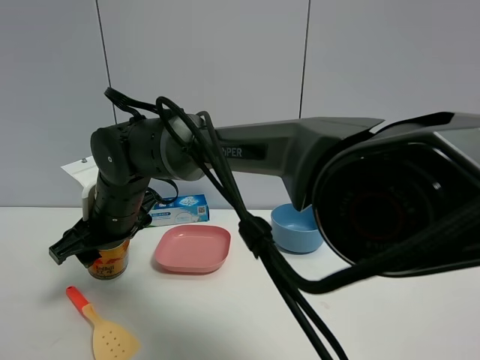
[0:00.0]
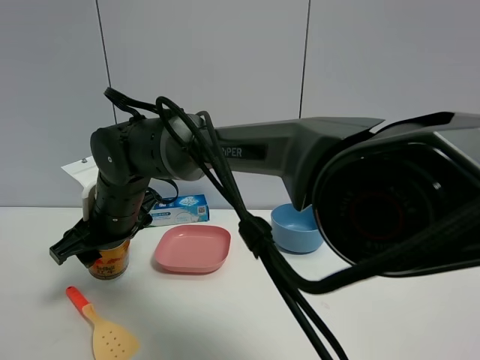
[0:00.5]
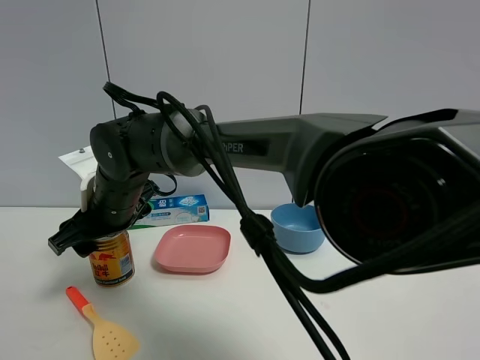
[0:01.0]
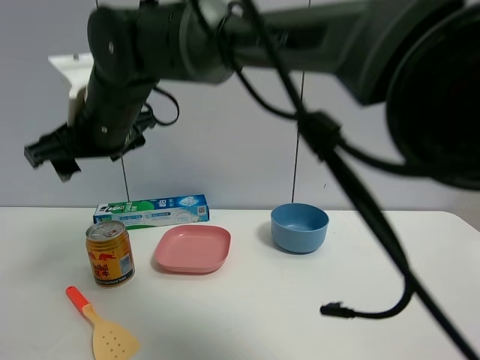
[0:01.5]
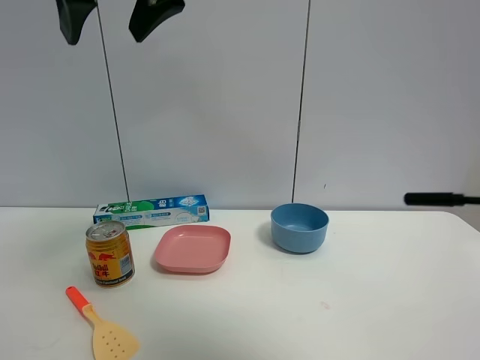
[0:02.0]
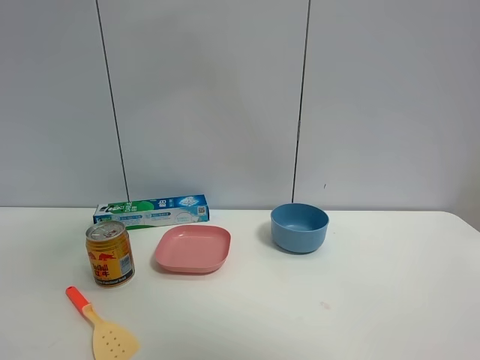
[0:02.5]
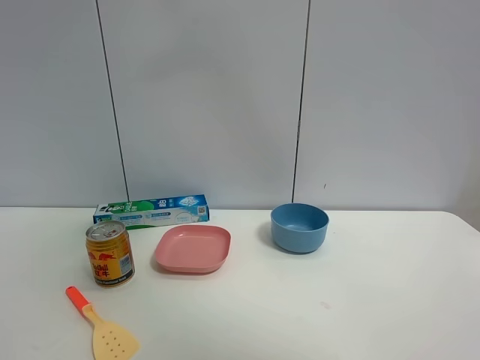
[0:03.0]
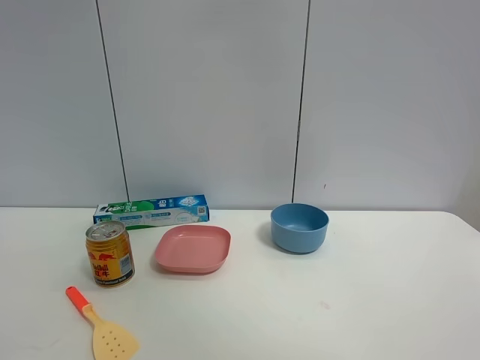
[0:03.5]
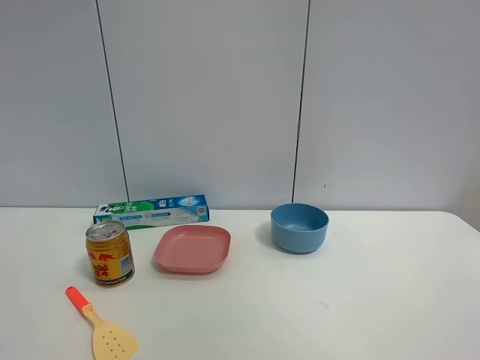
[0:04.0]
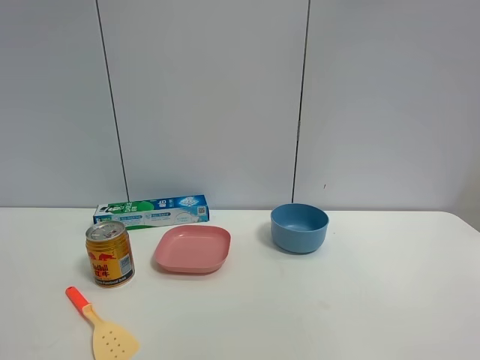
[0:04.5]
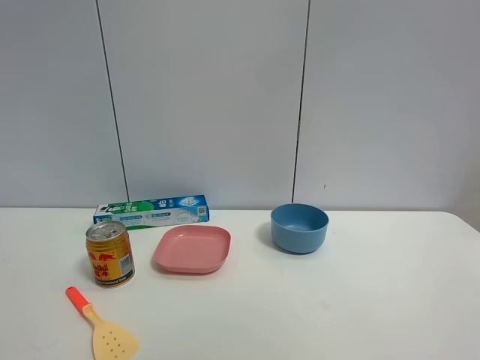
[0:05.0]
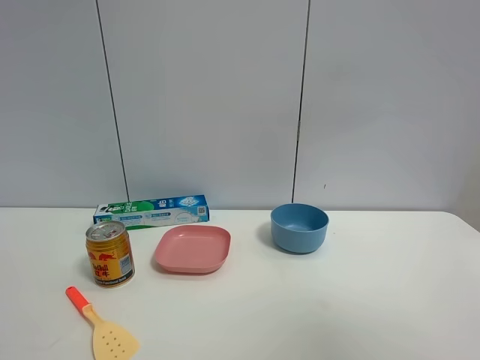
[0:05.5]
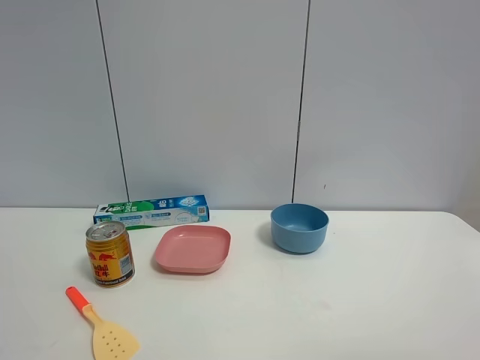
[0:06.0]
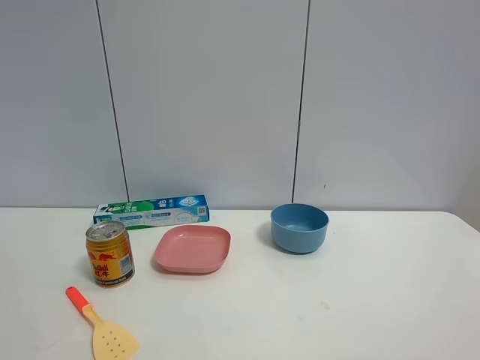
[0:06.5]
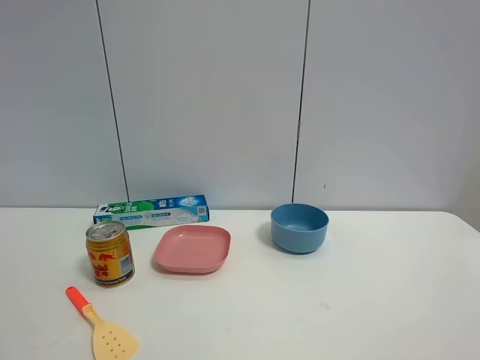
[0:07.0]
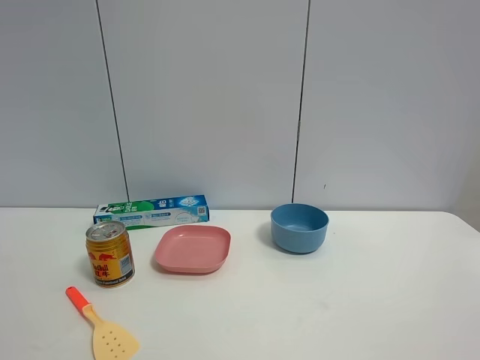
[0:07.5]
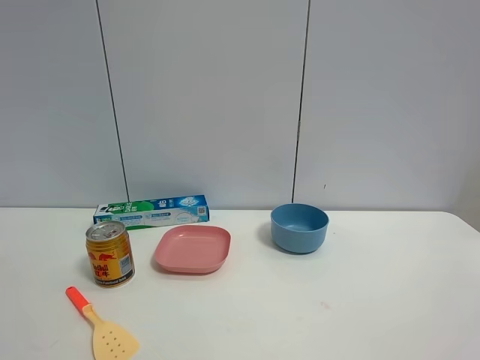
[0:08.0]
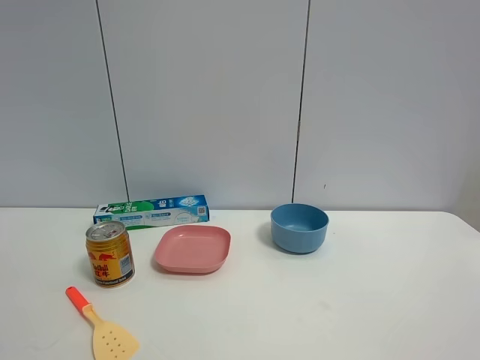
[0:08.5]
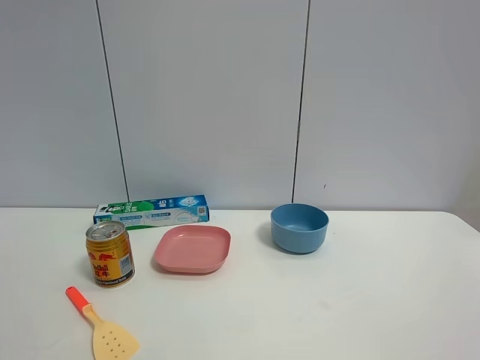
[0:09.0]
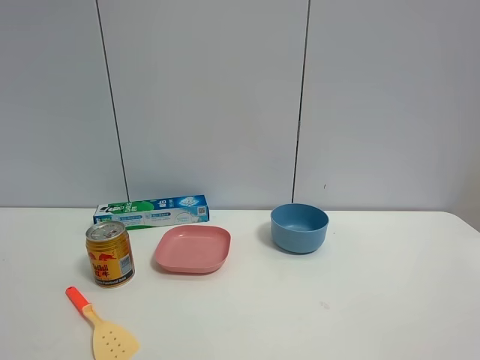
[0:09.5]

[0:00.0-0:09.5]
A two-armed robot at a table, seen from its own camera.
Task of the whole recording: the gripper move the object.
0:00.0 to 0:02.0: The right gripper heads upward, covering some 30 cm.
0:02.0 to 0:04.0: The right gripper travels to the right, upward and backward by roughly 40 cm.
0:04.0 to 0:05.5: The right gripper shifts approximately 20 cm downward and backward.
0:05.5 to 0:07.5: The right gripper is displaced downward by about 20 cm.

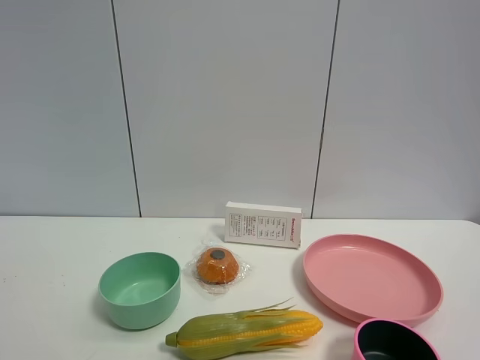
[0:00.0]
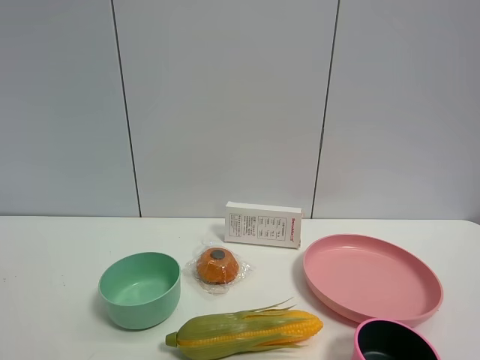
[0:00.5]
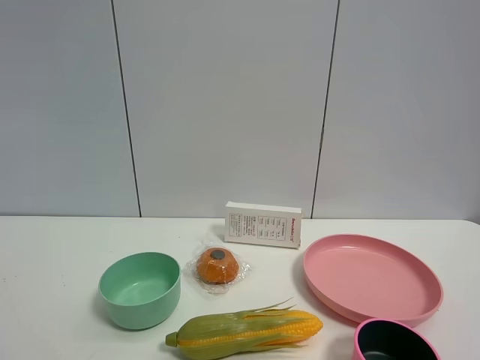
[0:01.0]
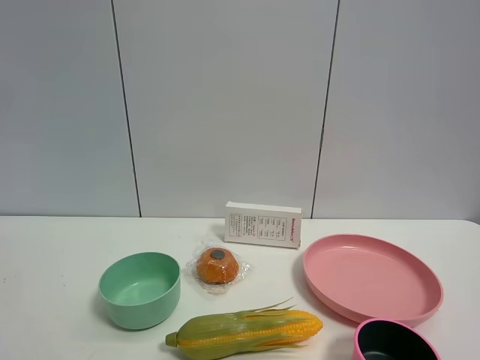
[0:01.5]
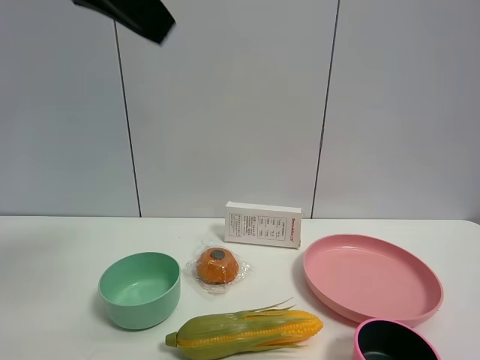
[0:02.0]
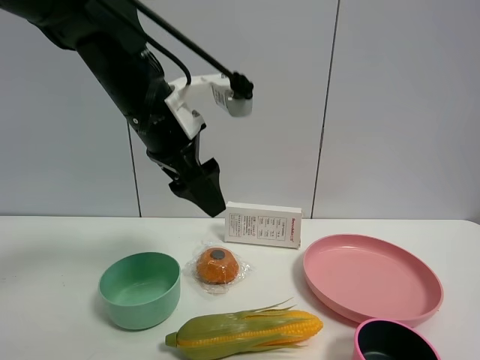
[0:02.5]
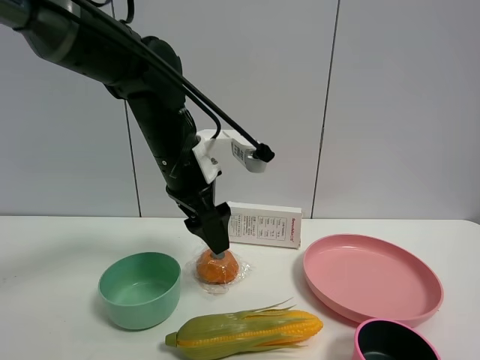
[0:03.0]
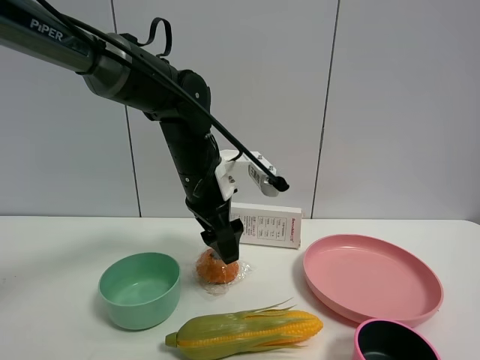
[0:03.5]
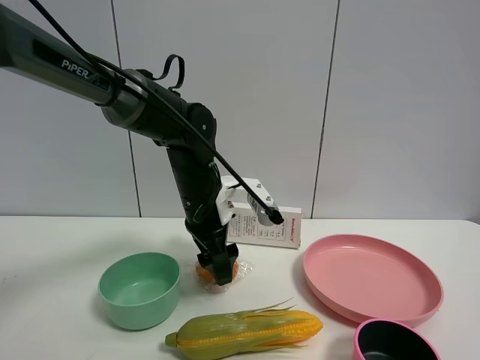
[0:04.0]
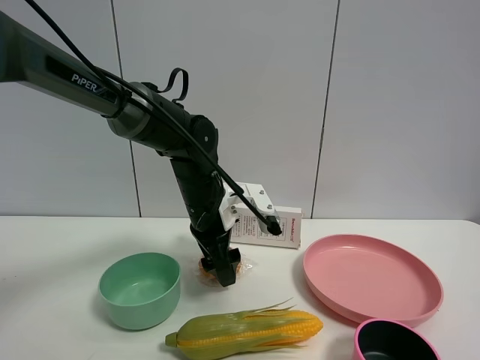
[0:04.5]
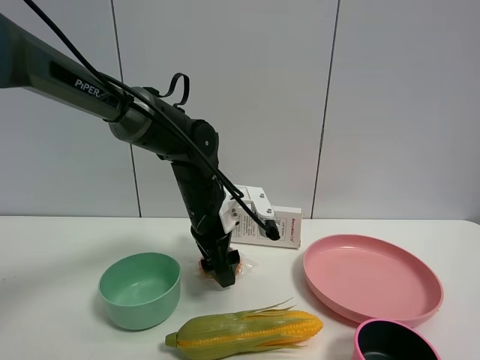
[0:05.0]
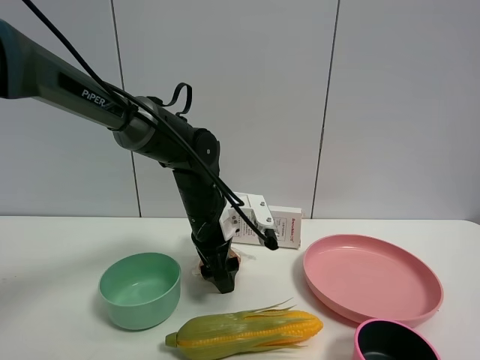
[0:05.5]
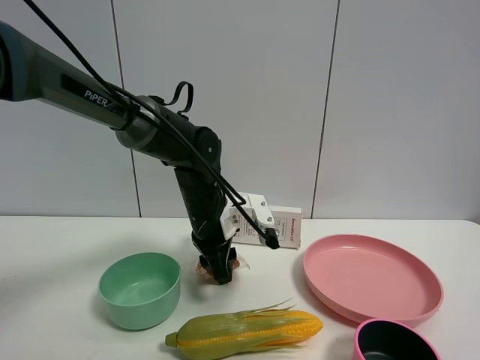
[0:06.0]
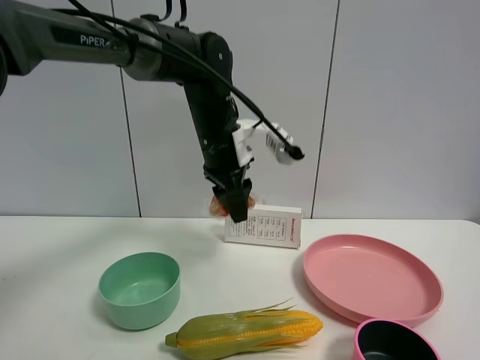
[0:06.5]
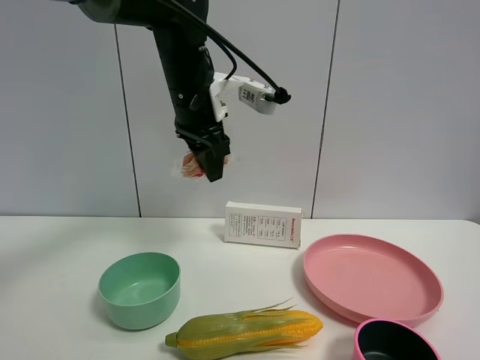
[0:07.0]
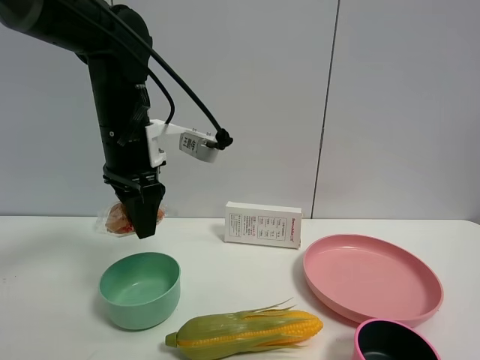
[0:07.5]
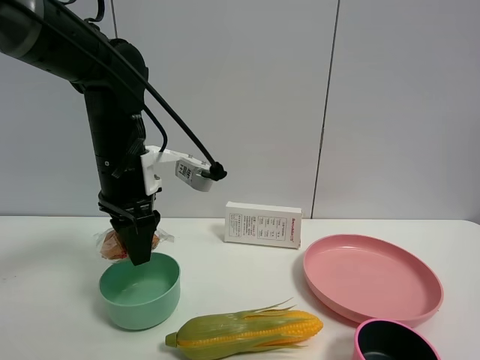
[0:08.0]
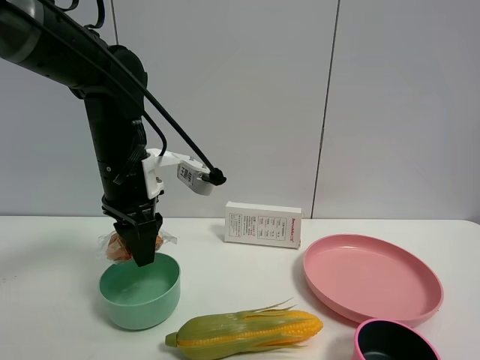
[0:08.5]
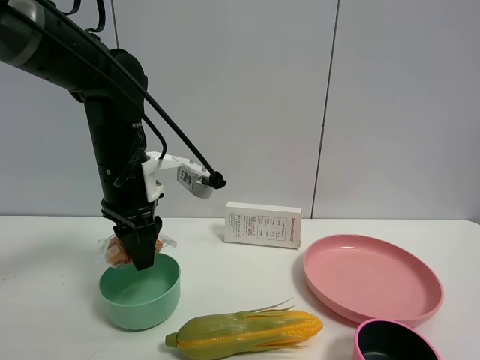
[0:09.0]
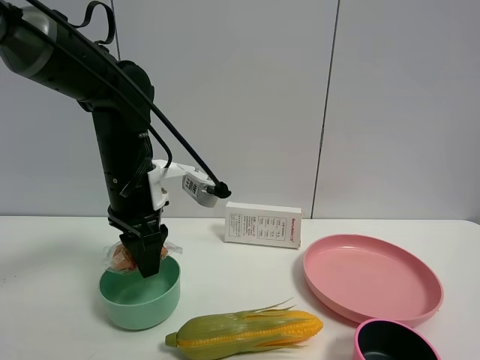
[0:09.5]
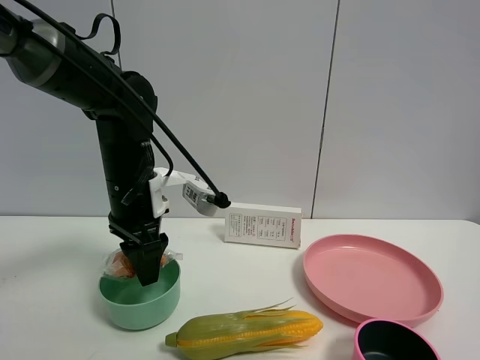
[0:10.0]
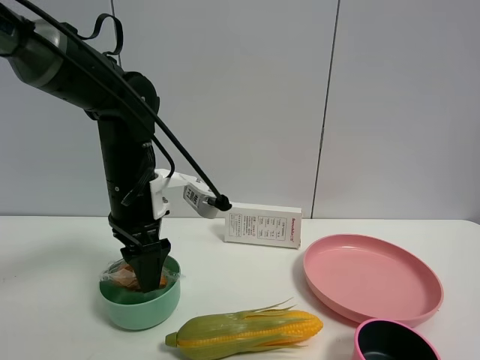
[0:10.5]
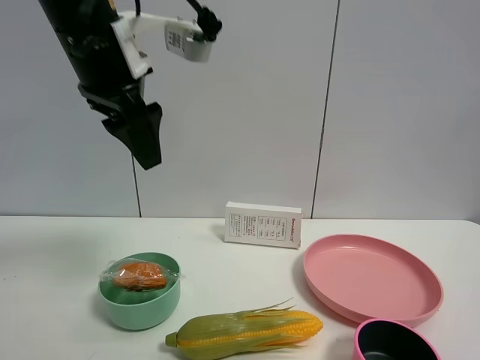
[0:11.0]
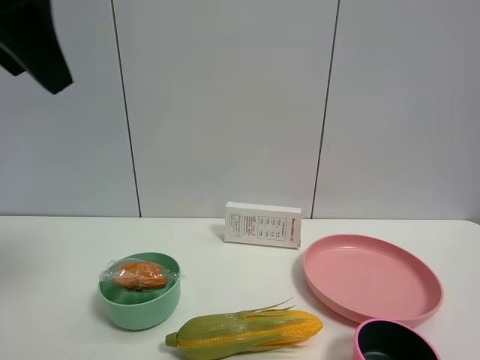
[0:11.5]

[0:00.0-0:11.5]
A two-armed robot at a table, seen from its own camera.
Task of the whole recording: the gripper move the object.
Step, 0:00.0 to 0:06.0: Grasp the egg tart with the left gripper.
Step, 0:06.5 to 0:10.5: Place the egg tart into the green bowl with the left gripper.
0:00.0 to 0:02.0: The left gripper travels forward, to the right and upward by approximately 35 cm.
0:02.0 to 0:04.0: The left gripper shifts roughly 35 cm downward, forward and to the right.
0:04.0 to 0:06.0: The left gripper closes its fingers.
0:06.0 to 0:07.5: The left gripper moves upward and to the left, approximately 15 cm.
0:07.5 to 0:09.5: The left gripper moves downward, about 5 cm.
0:09.5 to 0:11.5: The left gripper travels upward and backward by about 25 cm, and opens.

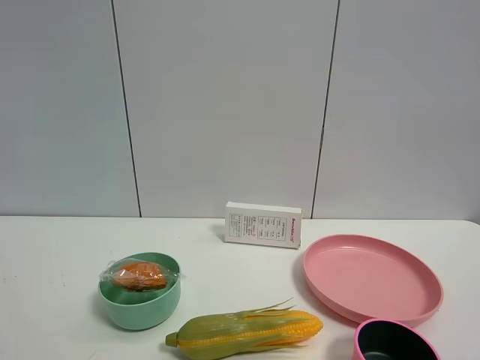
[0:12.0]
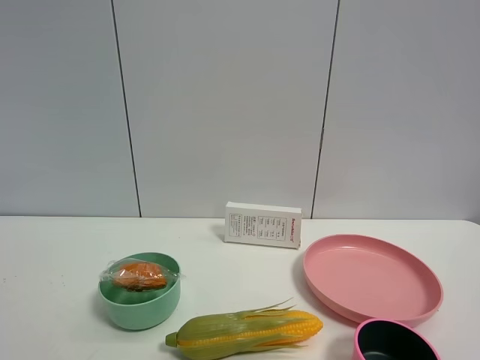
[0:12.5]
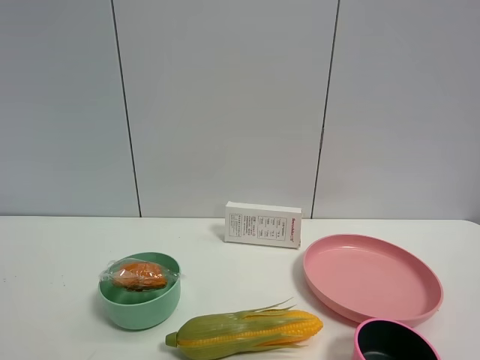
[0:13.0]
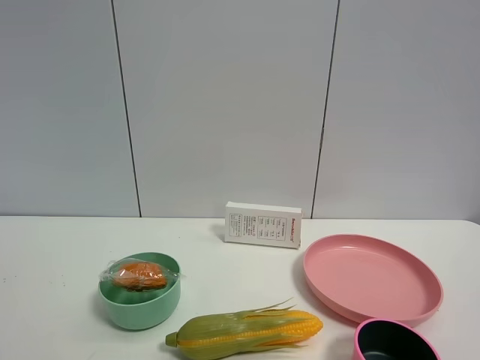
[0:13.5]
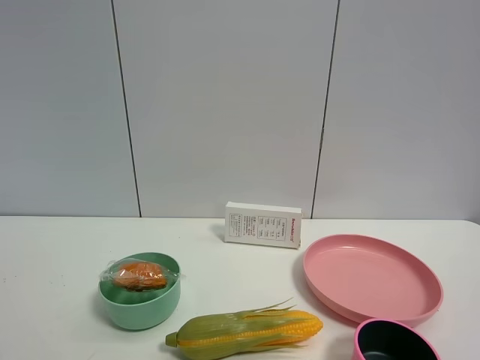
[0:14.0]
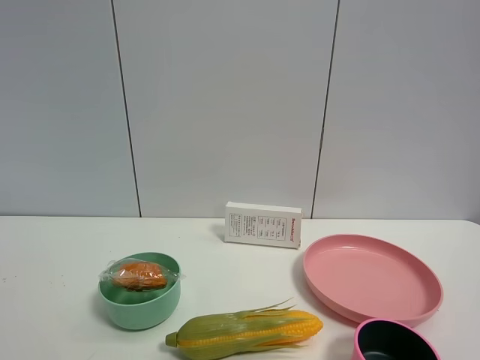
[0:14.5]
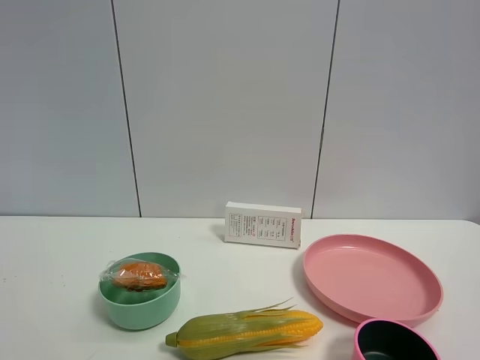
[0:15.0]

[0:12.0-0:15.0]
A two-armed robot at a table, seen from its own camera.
Task of the whole recording: the gripper move the object.
0:13.5 to 0:15.0: Neither gripper changes place.

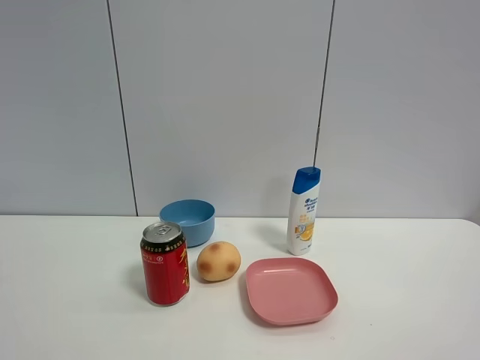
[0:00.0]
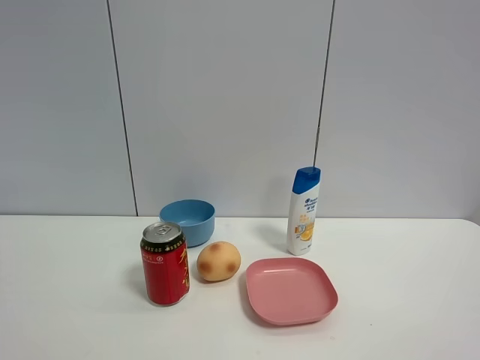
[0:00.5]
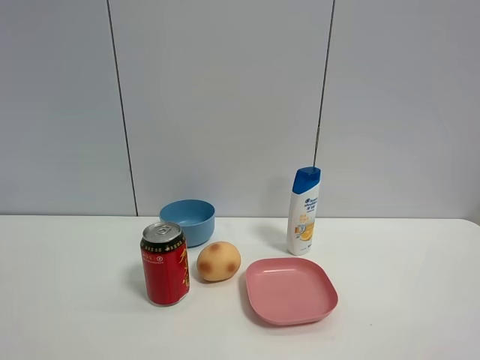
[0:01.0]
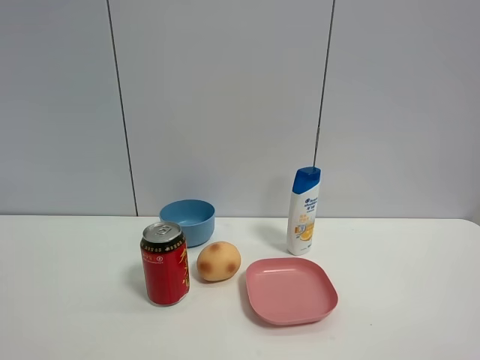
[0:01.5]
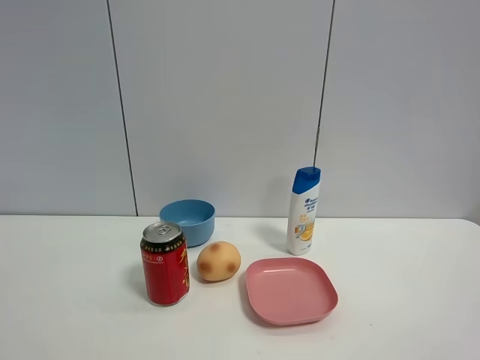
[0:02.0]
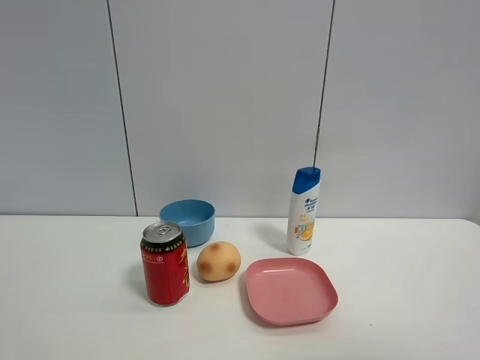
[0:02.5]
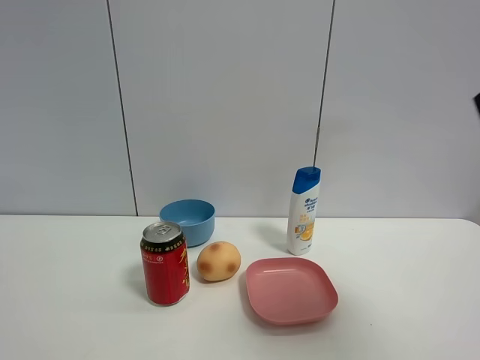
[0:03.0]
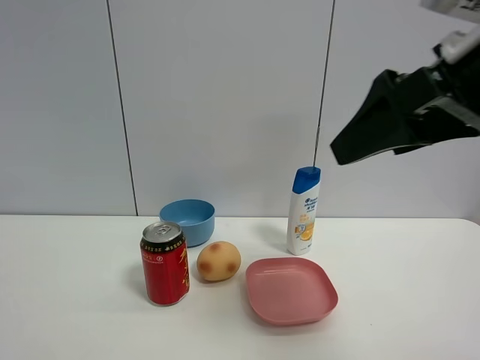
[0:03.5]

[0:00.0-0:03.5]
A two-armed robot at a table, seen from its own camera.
Task of the whole recording: the gripper move the object.
0:00.0 to 0:02.0: Neither gripper changes place.
0:02.0 to 0:03.5: The right gripper heads forward and to the left, covering roughly 25 cm.
